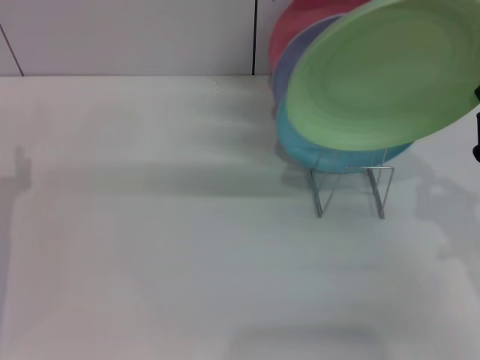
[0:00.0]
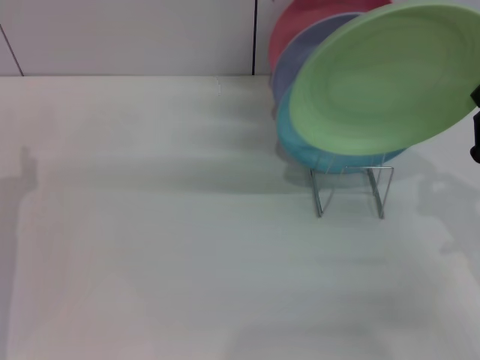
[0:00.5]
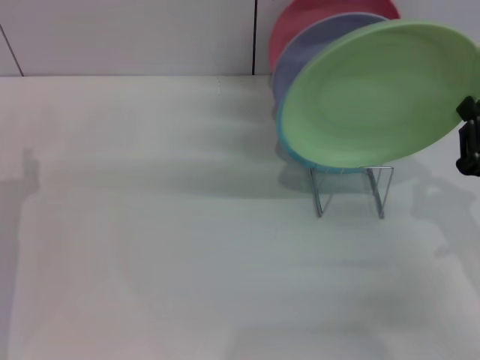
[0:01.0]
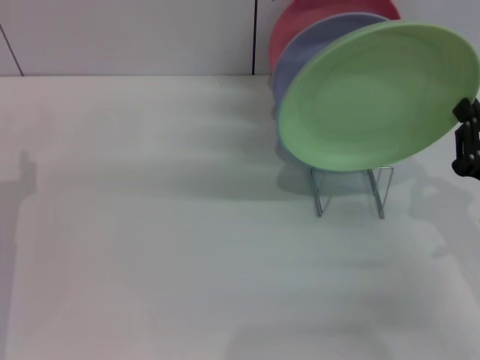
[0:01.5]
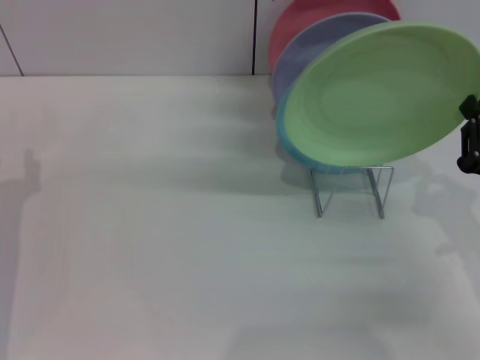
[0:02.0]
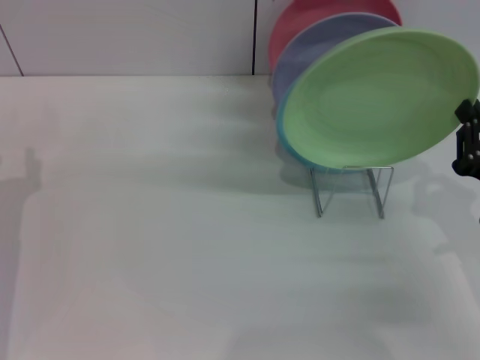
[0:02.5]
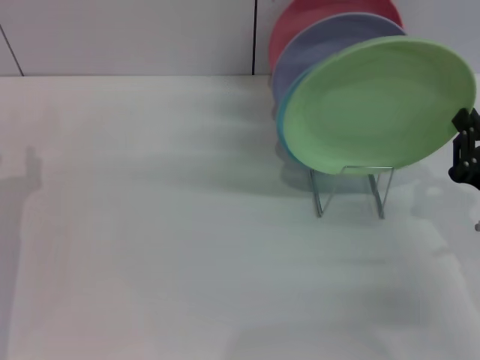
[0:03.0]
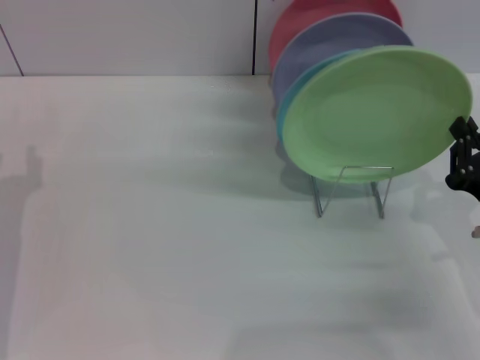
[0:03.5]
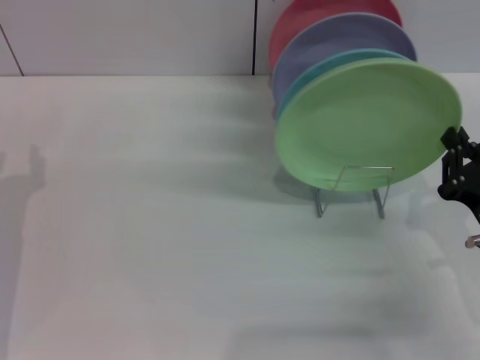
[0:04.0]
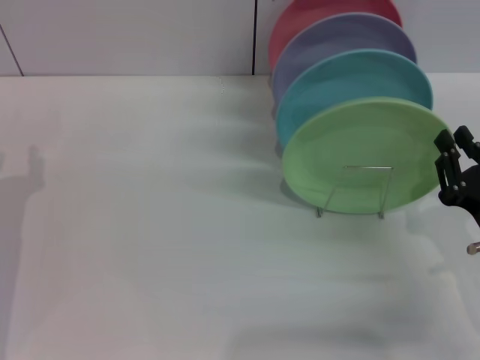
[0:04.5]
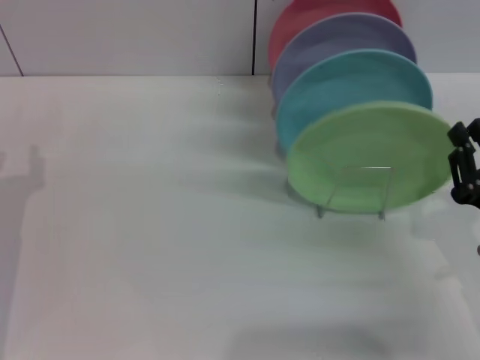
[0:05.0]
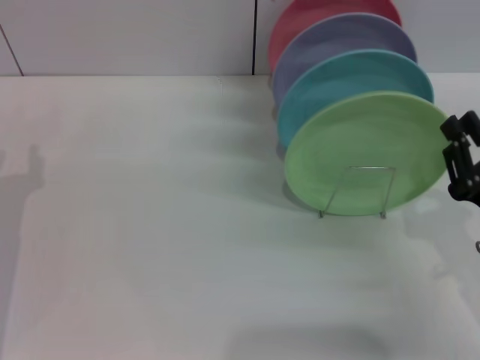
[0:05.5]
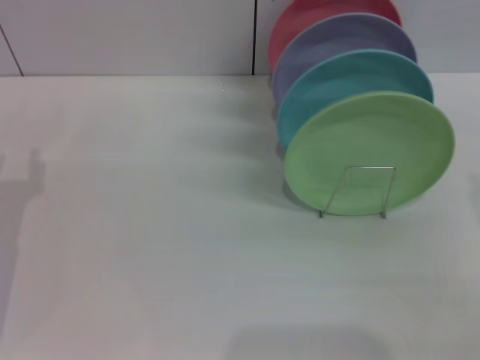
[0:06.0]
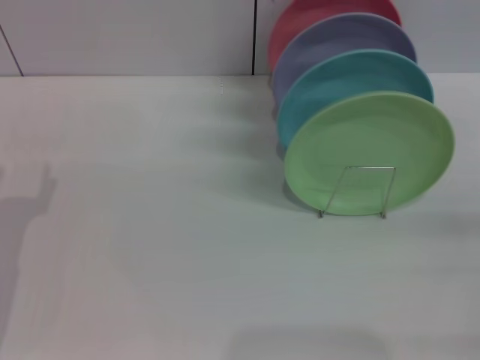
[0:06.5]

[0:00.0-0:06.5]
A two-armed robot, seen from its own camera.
Task of the whole recording: Grip the plate with one hand, pass it to the other, then set it on the shelf.
Step, 0:00.0 to 0:04.5: Place the plate on the shelf with the right gripper.
0:00.0 to 0:04.5: The grippers make only small movements.
0:04.5 to 0:06.5: The right gripper goes roughly 10 cm to the right, and opens its fingers.
